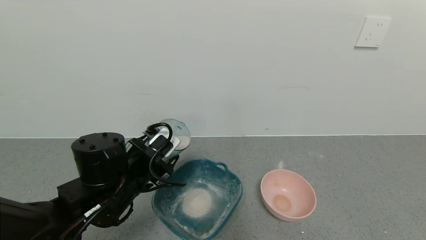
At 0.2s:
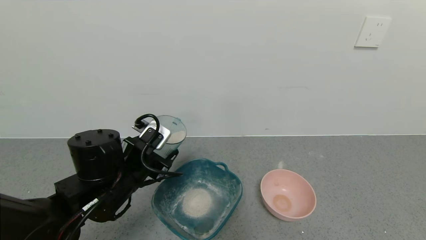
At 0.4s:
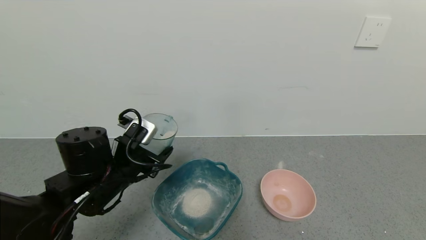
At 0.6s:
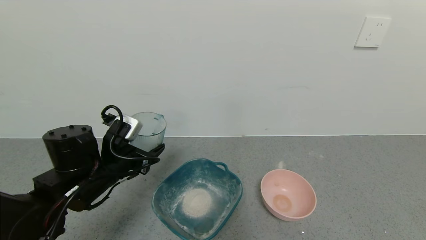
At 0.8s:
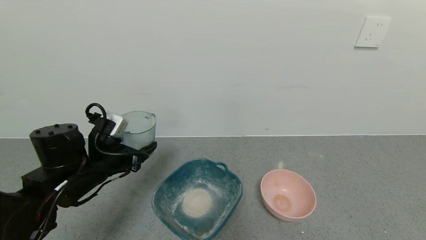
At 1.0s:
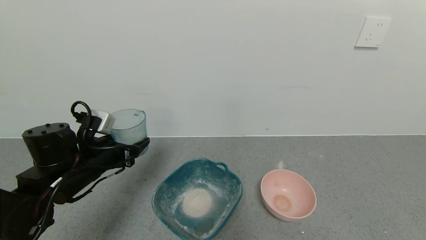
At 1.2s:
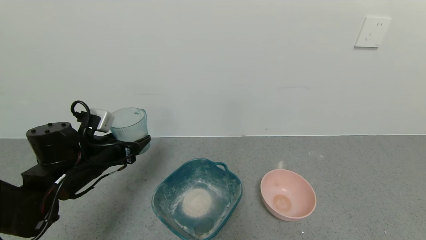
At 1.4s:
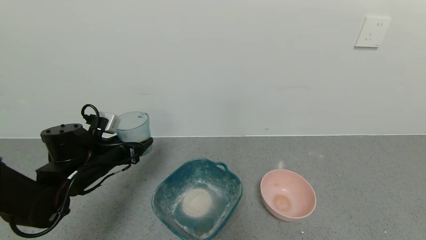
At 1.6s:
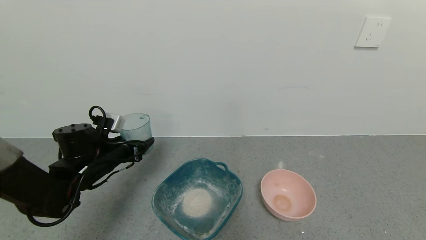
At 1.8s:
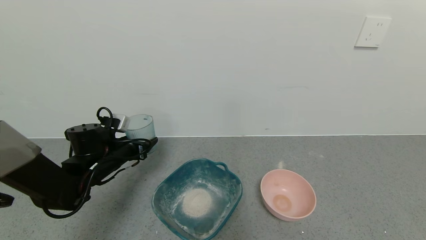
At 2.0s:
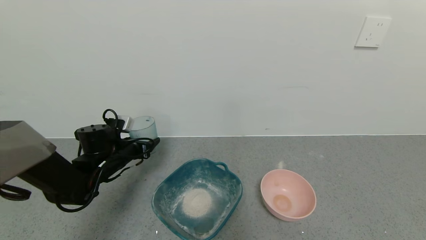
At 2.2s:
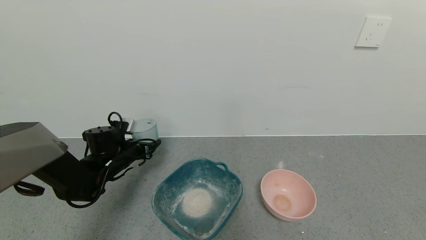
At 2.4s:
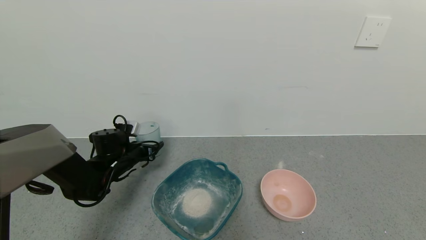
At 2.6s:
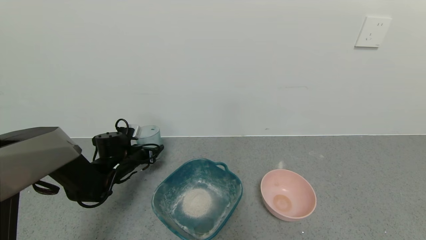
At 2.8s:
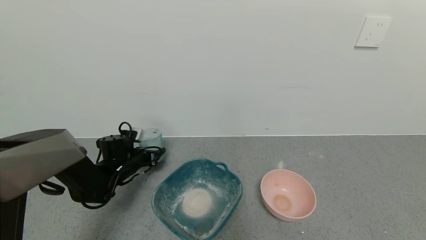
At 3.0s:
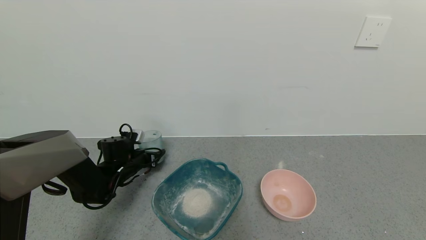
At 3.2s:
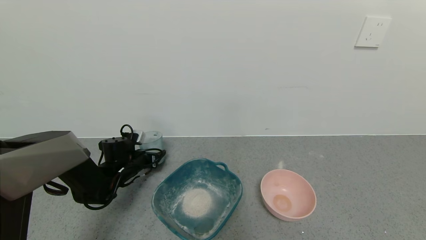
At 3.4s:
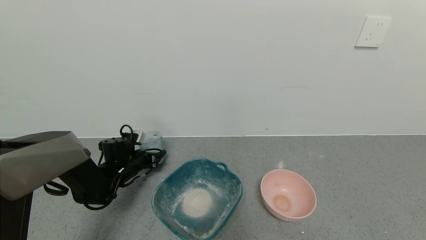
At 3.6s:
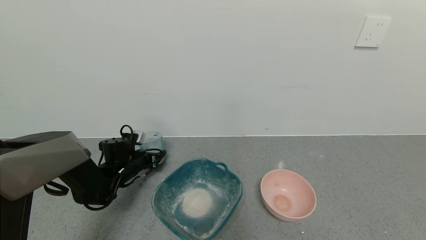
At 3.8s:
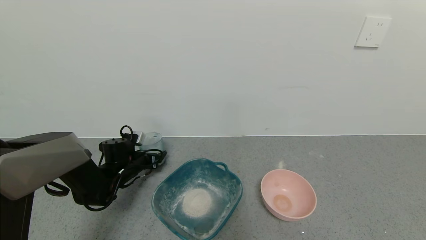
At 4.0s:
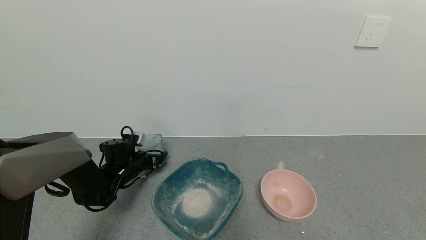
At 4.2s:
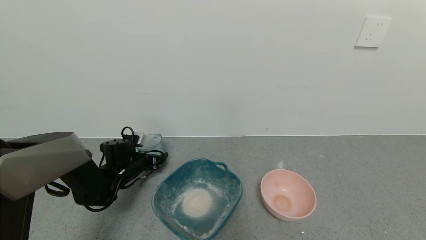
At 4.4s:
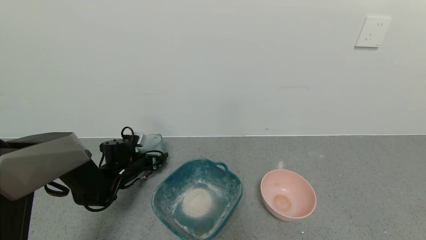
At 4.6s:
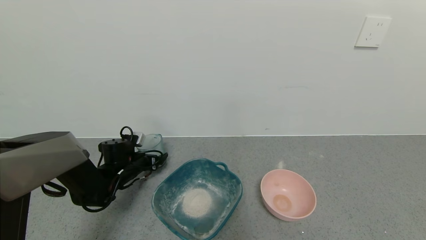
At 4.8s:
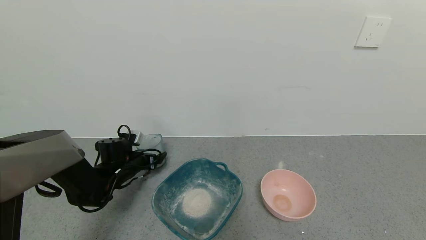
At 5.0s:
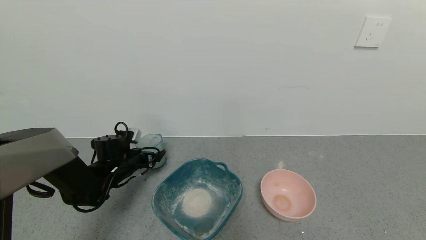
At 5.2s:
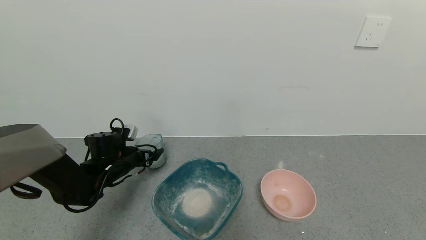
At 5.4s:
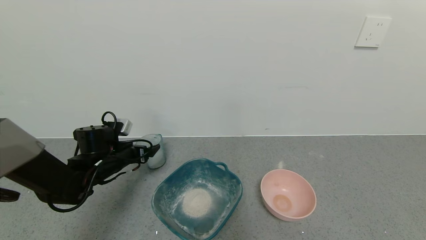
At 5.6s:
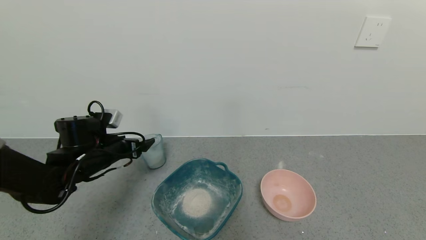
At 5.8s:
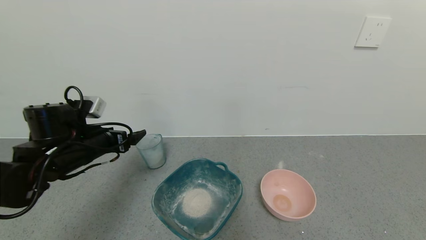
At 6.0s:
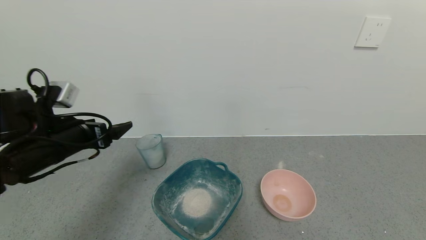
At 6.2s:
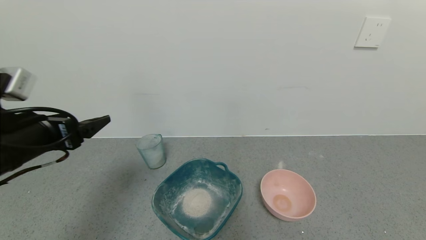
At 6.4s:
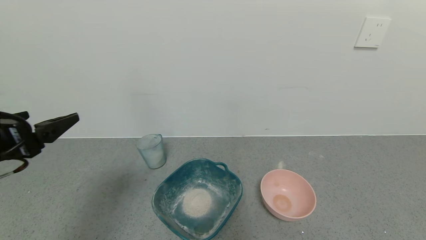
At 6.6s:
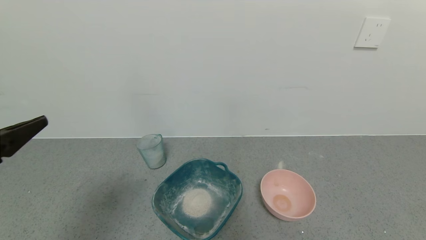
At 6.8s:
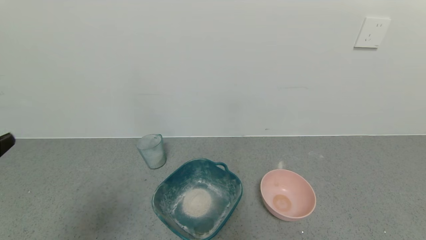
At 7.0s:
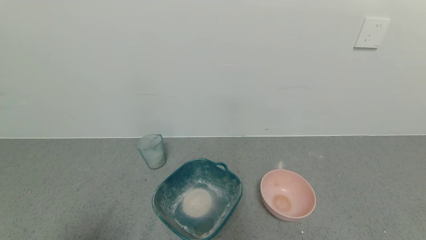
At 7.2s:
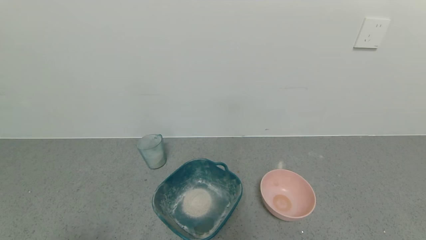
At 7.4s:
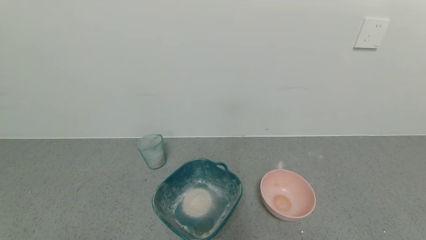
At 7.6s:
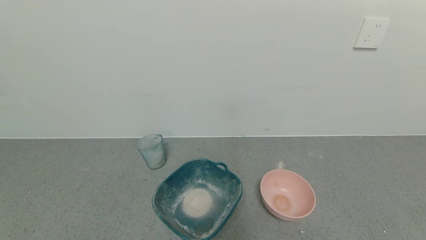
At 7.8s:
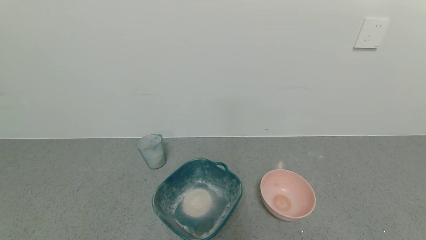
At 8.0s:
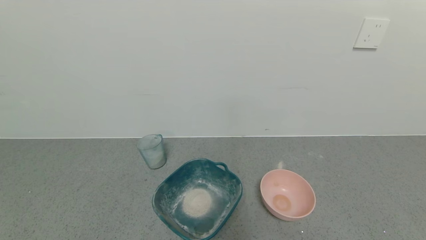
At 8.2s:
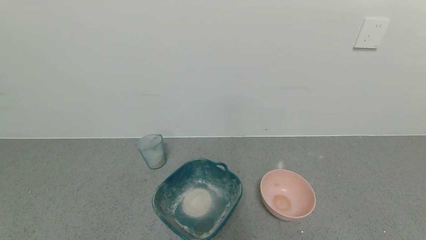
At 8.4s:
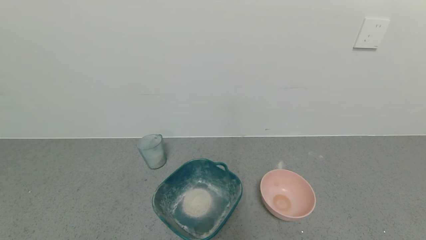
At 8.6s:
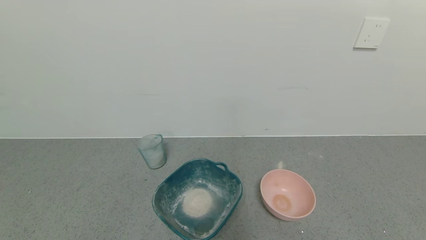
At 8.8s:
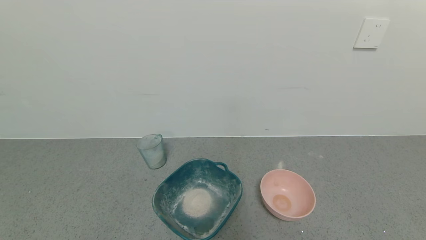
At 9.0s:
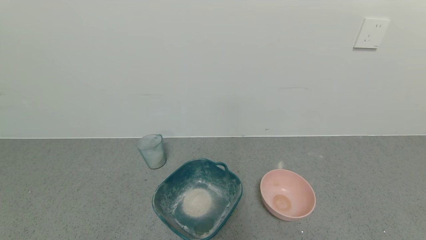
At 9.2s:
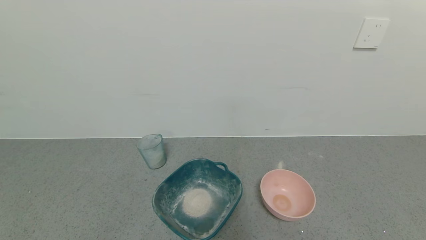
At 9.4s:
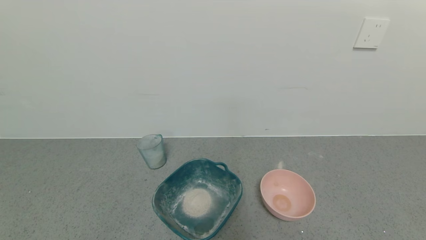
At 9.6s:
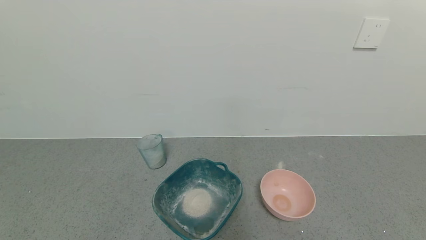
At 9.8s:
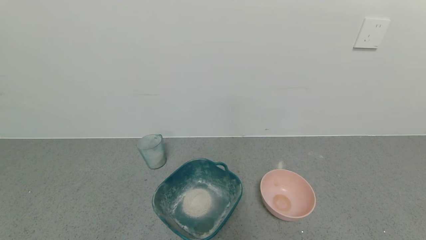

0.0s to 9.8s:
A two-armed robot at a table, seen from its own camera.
Task of the whole recording: use a gripper to pick up the cup and pour the powder into a bowl or tray.
Step, 0.0s to 5.4s: Place the glass cup down with the left gripper.
0.0s to 1.4s: The left gripper shifts some 15 cm to the left and forward.
1.4s to 2.8s: The left gripper travels forward and downward by about 15 cm.
2.8s to 4.2s: The left gripper opens its fingers.
4.2s to 5.6s: The left gripper shifts roughly 10 cm upward and backward.
5.6s to 7.0s: The left gripper travels backward and upward by some 35 cm.

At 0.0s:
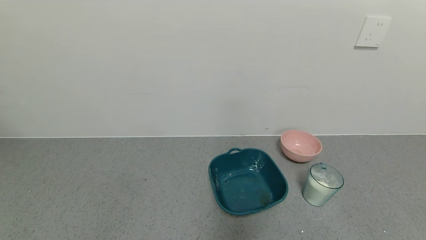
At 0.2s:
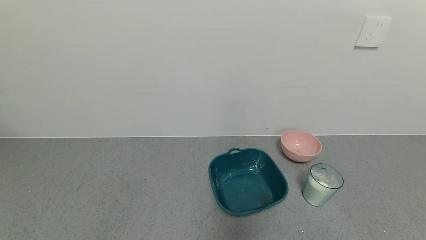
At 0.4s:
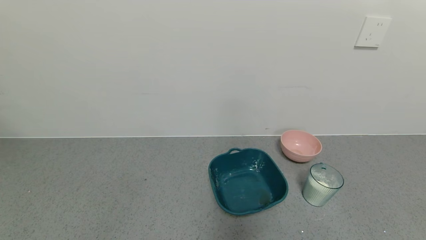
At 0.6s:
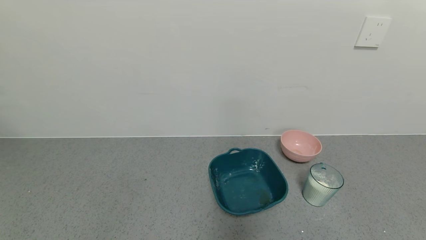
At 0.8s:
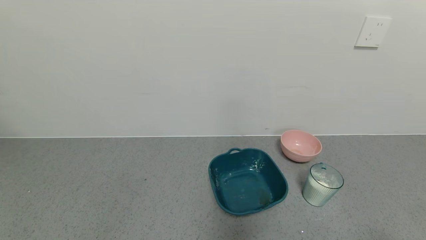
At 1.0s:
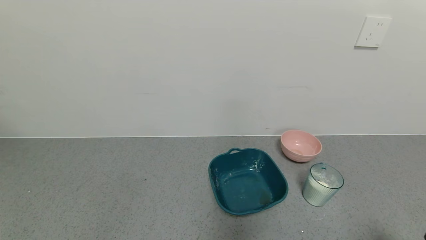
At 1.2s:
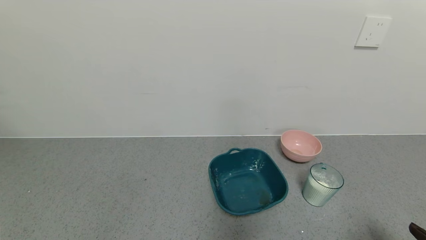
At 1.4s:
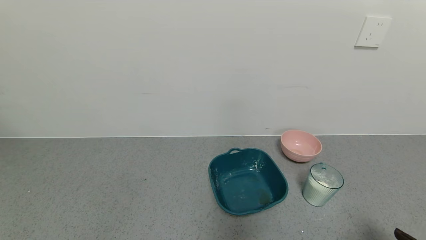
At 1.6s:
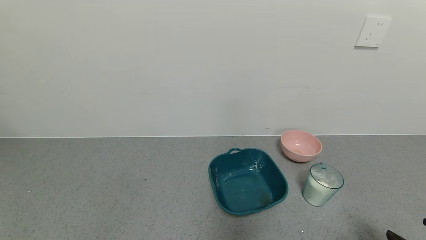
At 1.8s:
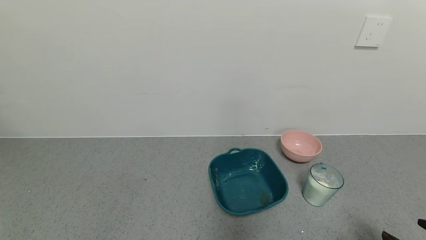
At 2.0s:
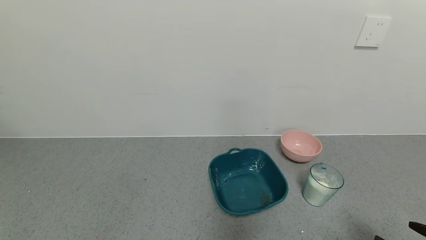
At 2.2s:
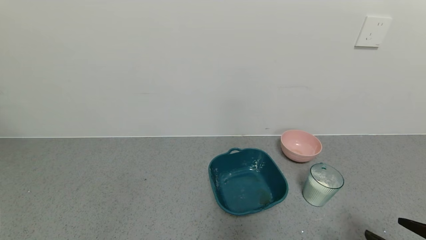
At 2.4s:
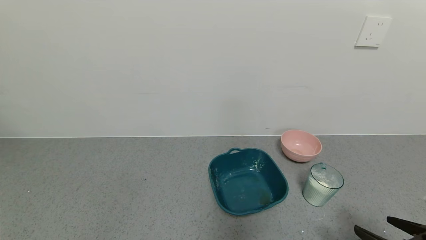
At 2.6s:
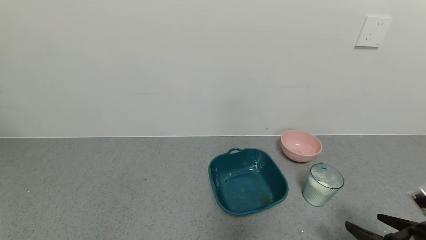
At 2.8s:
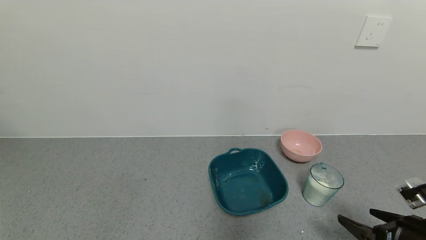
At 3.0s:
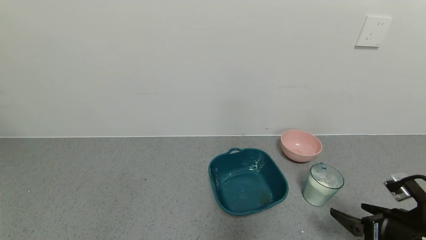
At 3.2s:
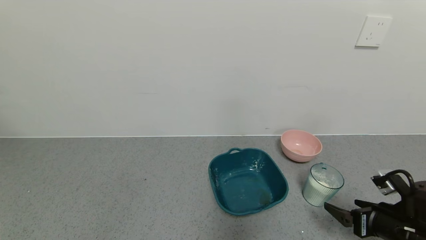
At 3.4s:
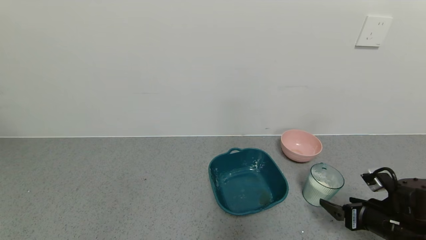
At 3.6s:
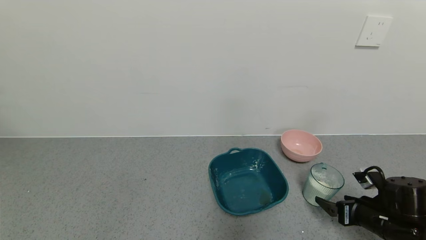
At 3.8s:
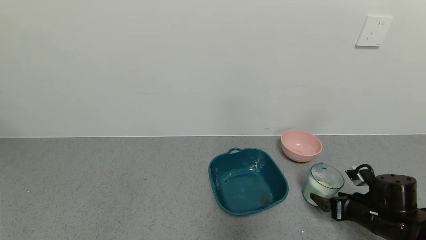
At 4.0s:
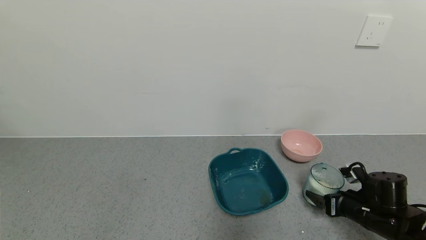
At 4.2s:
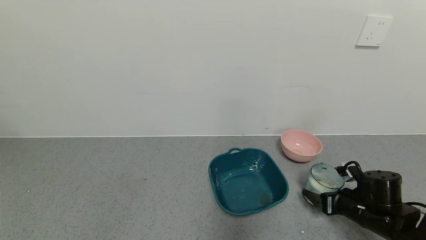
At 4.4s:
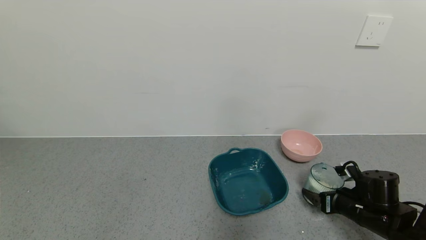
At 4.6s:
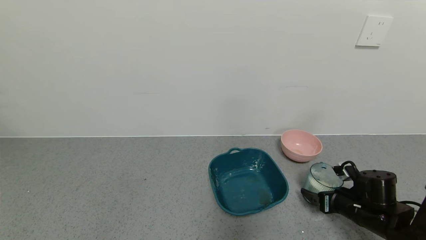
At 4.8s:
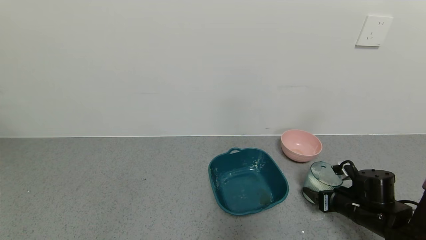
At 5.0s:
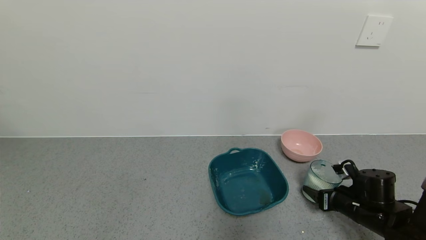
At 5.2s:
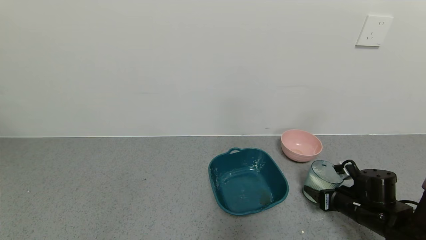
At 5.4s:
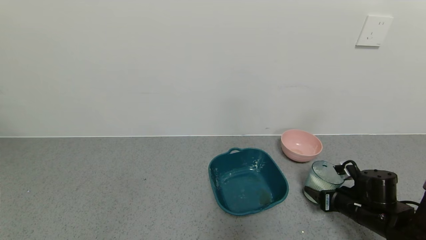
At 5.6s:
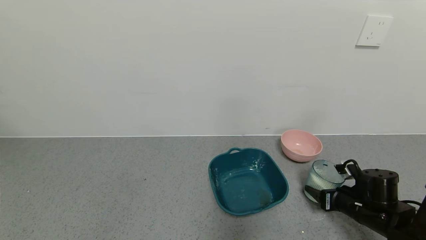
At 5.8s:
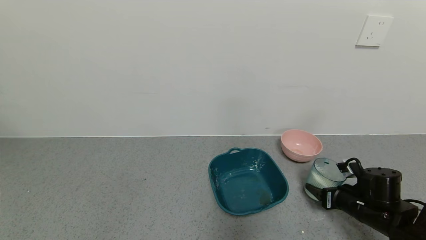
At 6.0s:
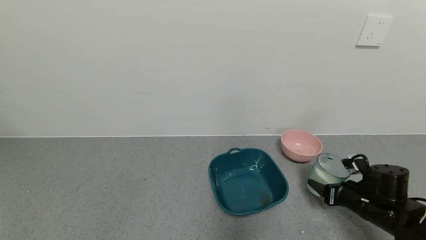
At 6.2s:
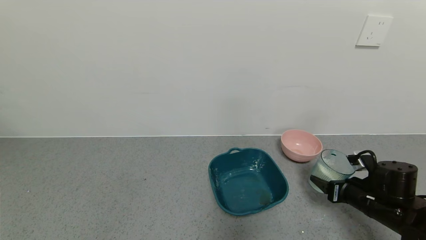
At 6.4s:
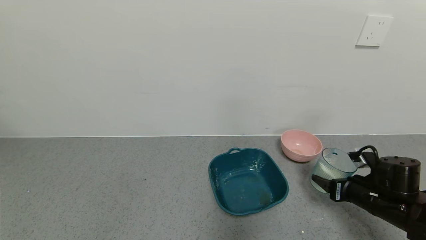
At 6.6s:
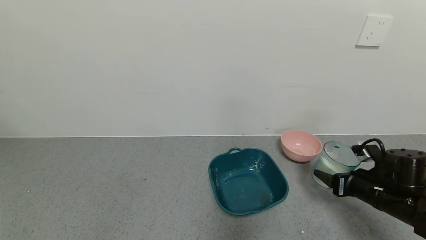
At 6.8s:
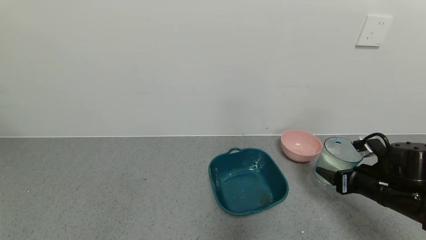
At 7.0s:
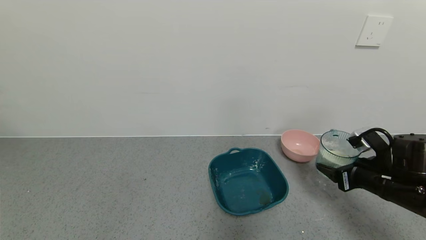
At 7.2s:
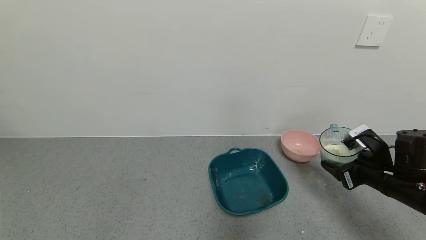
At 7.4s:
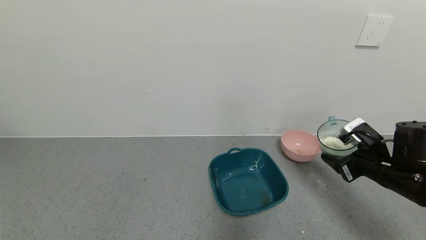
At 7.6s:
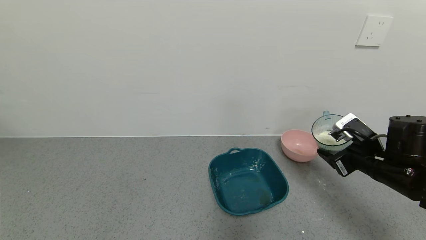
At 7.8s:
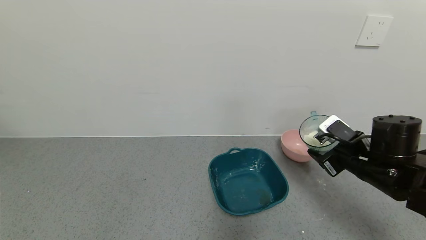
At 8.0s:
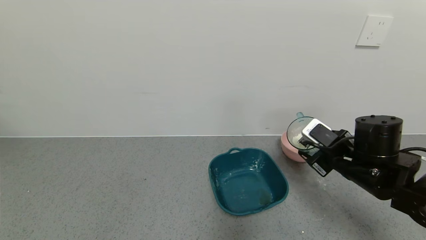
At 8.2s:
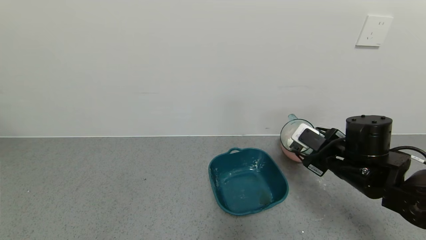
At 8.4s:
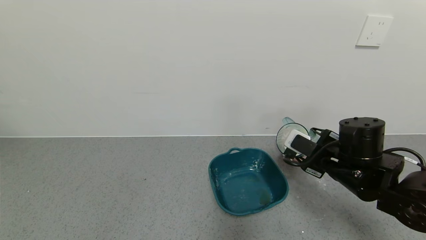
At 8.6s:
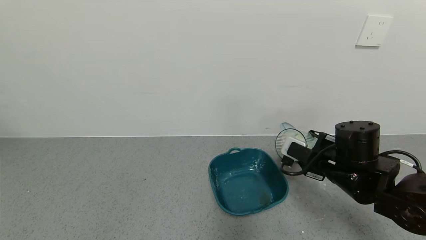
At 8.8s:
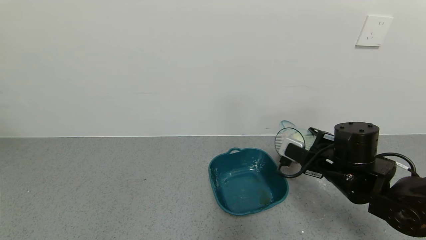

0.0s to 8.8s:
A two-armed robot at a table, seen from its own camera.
Task of the whole recording: use a gripper to pick up the cup and pour the powder into a bowl or tray.
Step, 0.0s to 6.0s: Pick up blue cup filled with milk powder with right gripper.
1.4s to 3.0s: The right gripper shifts about 10 cm forward.
3.0s to 4.4s: The right gripper travels forward and downward by approximately 10 cm.
4.4s to 5.8s: The right gripper closes its fingers.
5.8s to 7.4s: The right gripper travels upward by about 10 cm.
7.4s to 8.8s: The right gripper shifts some 10 cm to the left.
